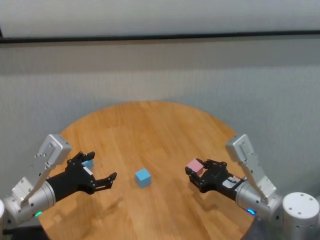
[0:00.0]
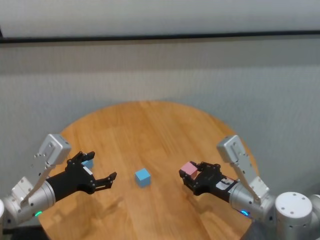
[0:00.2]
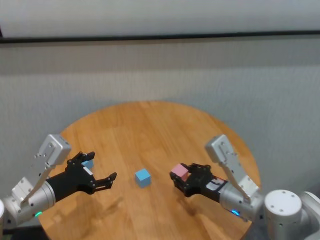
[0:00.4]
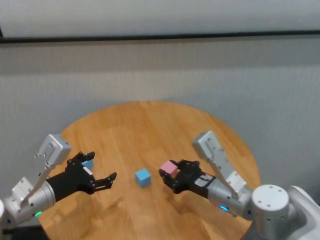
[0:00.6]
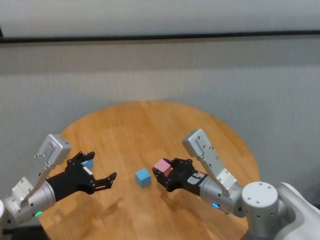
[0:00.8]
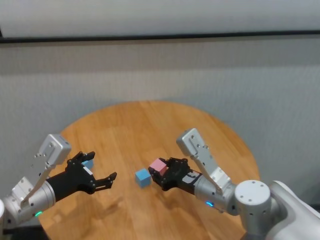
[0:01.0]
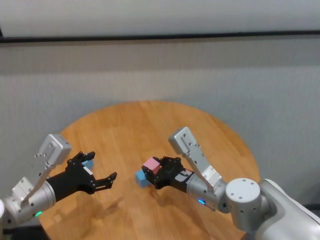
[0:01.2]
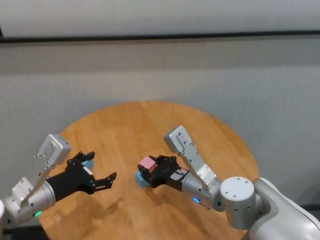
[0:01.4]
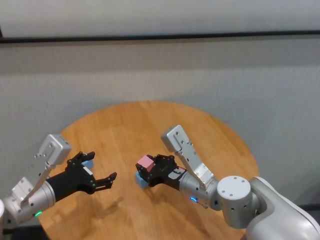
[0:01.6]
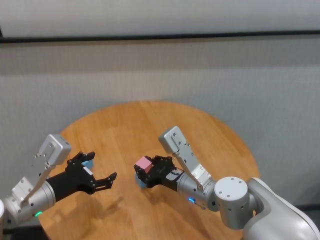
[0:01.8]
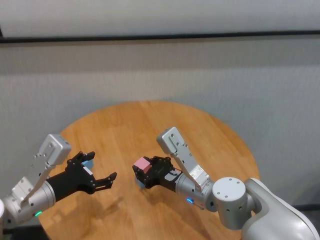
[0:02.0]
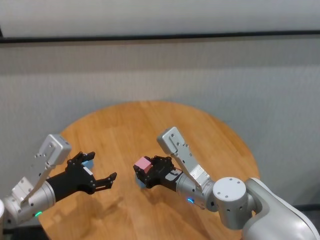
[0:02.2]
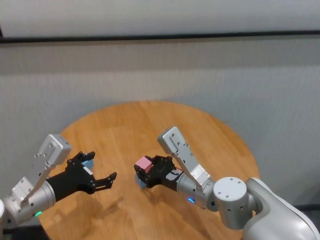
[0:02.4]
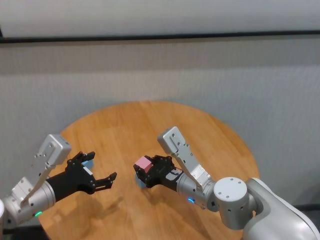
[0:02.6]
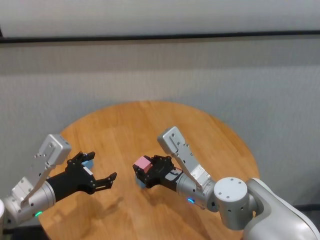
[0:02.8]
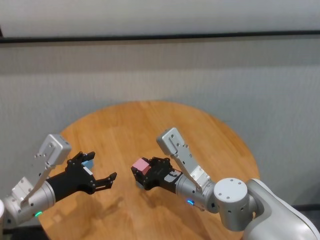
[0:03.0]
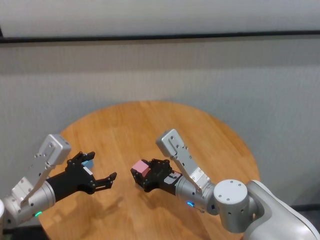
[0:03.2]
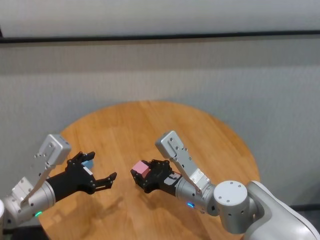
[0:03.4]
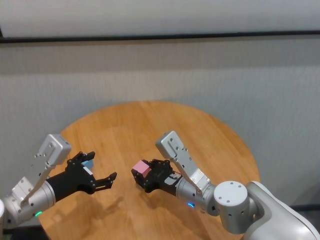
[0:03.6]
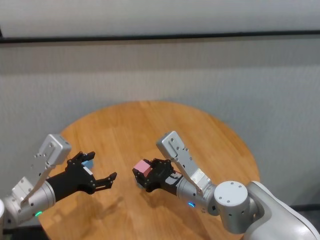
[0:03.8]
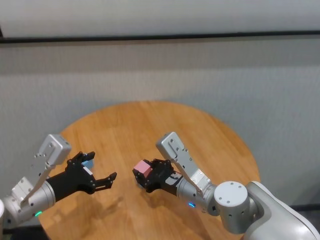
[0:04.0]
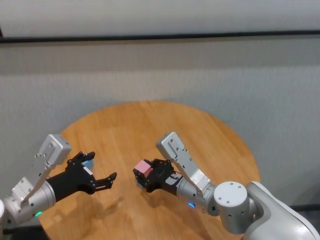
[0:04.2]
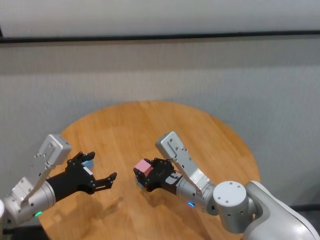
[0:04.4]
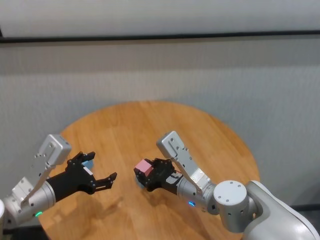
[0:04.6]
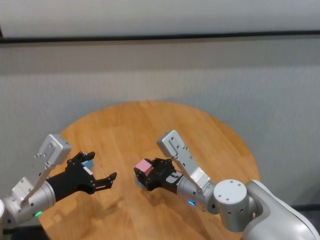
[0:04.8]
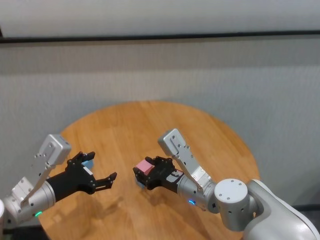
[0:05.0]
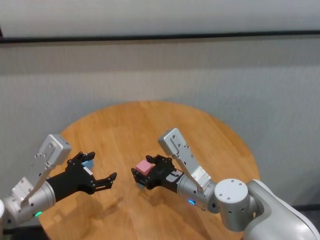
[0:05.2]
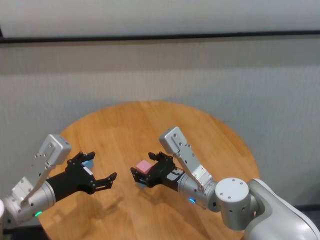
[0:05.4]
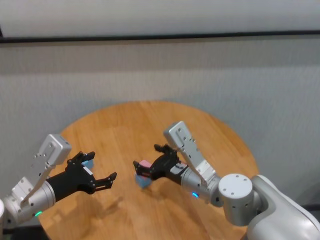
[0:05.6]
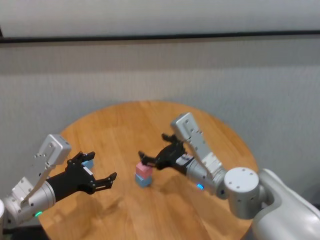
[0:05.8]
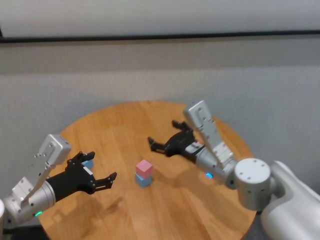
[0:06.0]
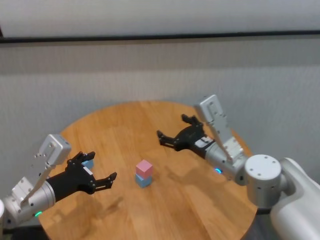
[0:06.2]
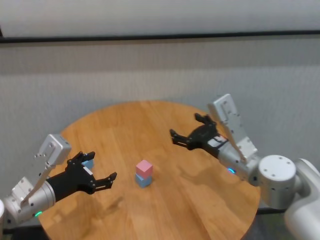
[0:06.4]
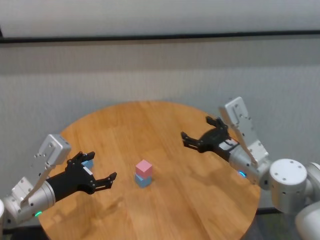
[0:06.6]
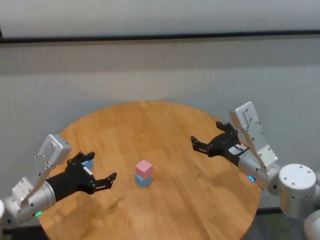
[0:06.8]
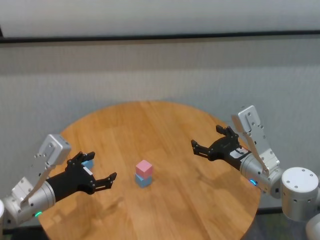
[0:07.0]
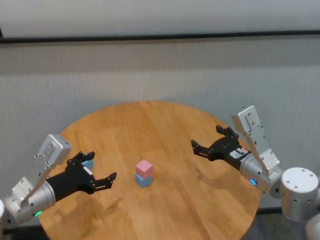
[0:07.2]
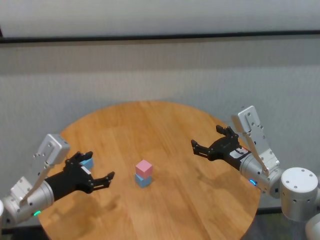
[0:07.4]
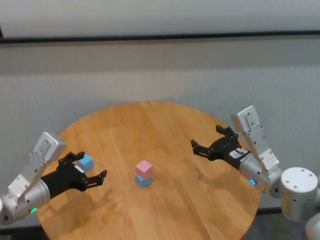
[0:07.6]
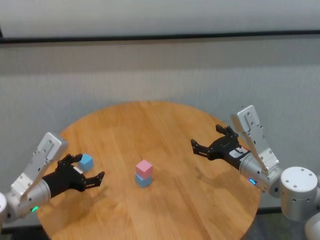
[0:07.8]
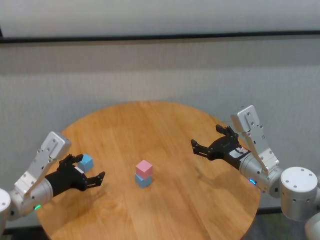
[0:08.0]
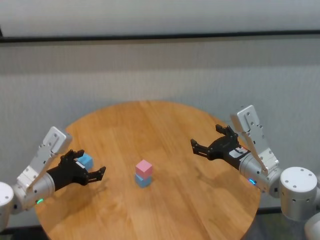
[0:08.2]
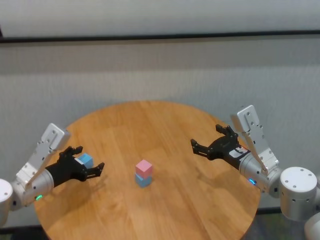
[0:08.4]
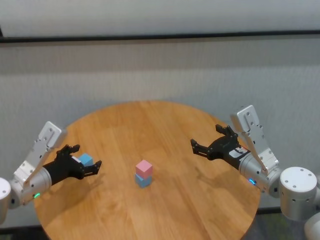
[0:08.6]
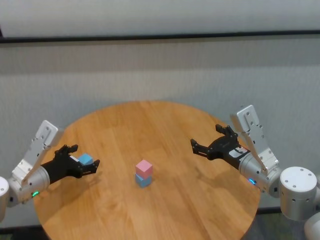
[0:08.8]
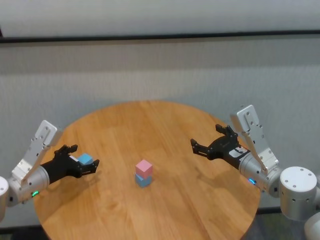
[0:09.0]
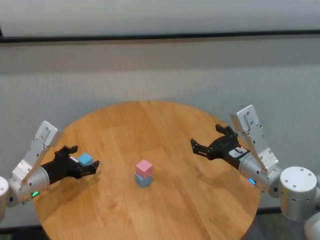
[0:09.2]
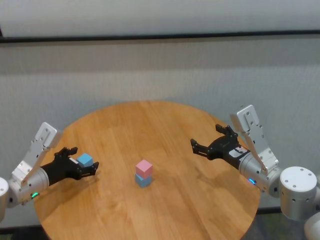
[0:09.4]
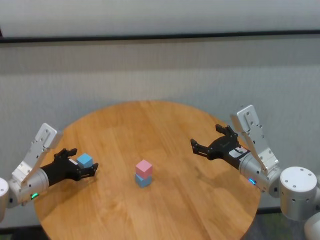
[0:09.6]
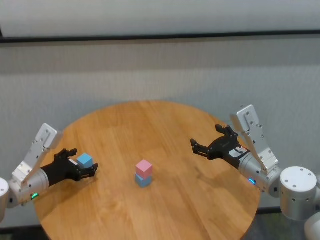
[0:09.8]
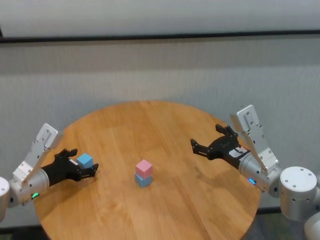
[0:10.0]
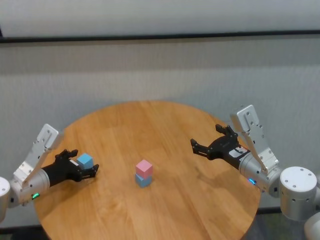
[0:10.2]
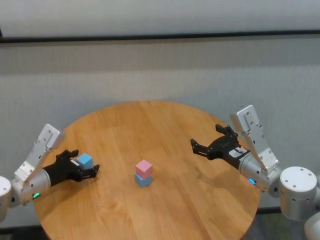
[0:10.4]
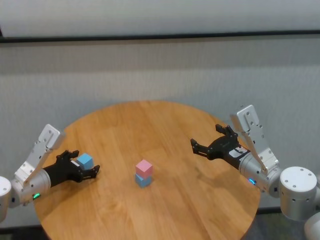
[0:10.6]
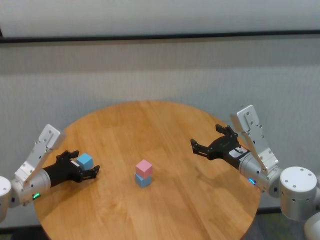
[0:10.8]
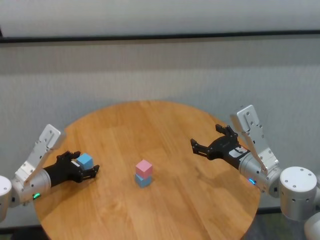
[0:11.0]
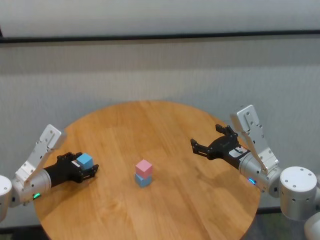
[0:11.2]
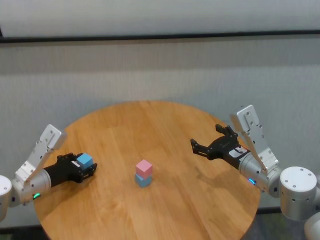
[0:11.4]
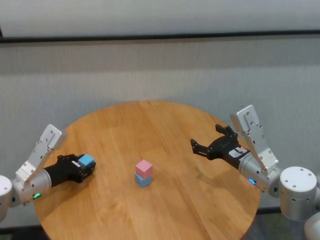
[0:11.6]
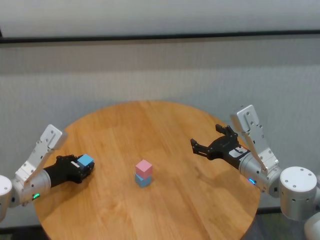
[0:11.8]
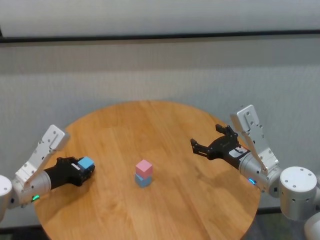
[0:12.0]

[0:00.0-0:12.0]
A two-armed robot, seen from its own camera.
Task of the whole recording: stack building blocks on the table.
Step, 0:00.0 to 0:05.4: Place the pink building block on the blue building blocks with right gripper.

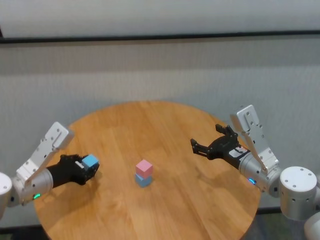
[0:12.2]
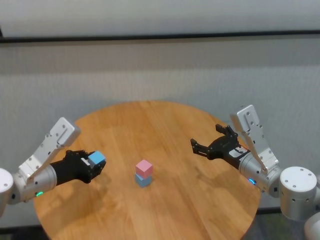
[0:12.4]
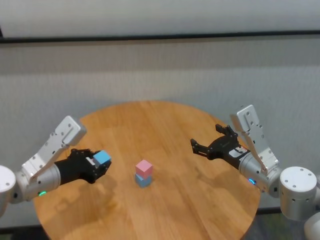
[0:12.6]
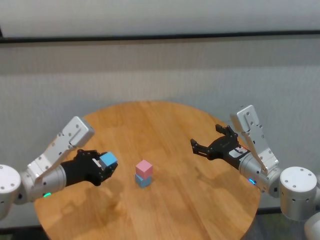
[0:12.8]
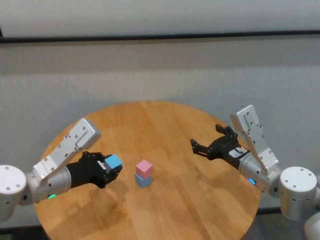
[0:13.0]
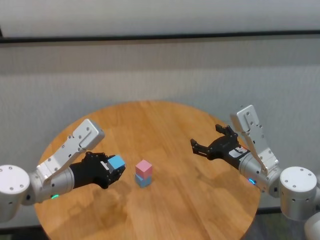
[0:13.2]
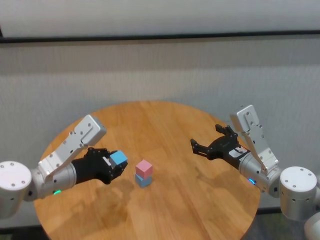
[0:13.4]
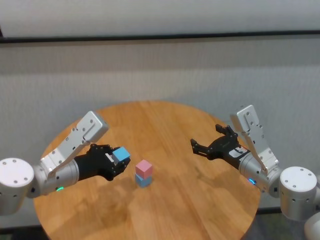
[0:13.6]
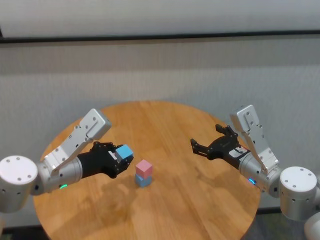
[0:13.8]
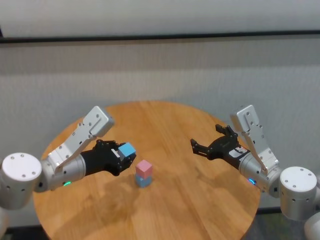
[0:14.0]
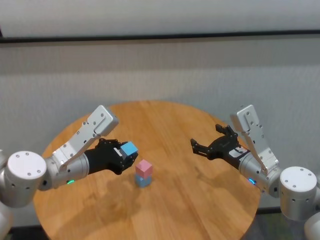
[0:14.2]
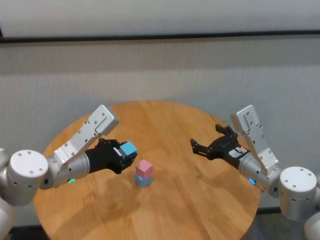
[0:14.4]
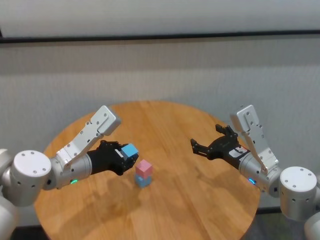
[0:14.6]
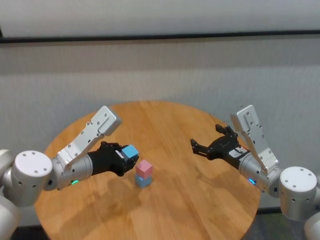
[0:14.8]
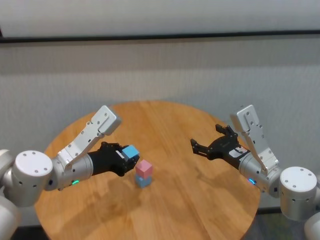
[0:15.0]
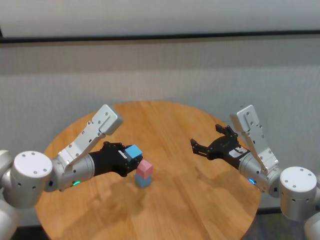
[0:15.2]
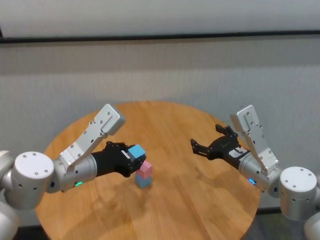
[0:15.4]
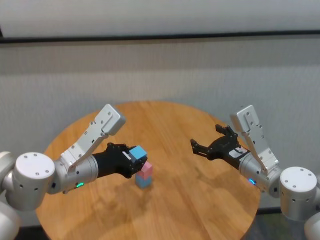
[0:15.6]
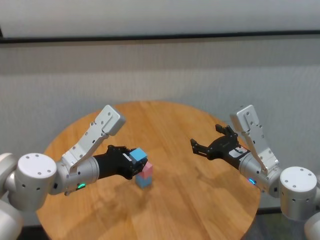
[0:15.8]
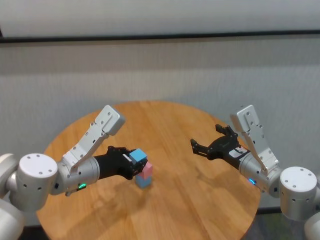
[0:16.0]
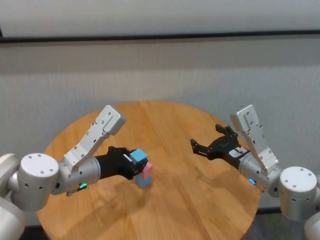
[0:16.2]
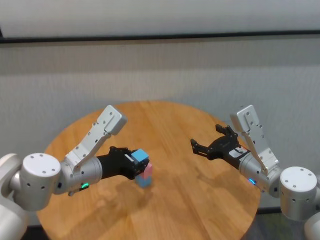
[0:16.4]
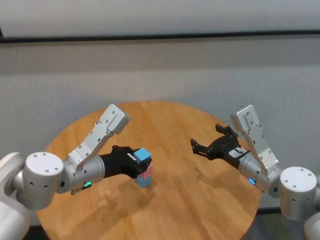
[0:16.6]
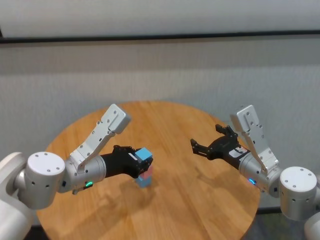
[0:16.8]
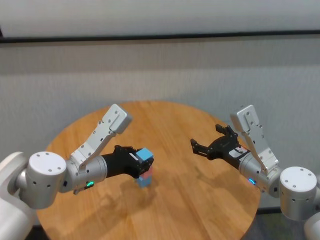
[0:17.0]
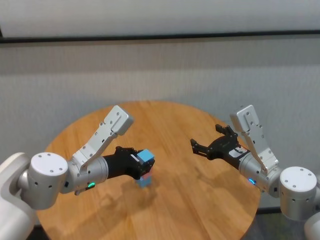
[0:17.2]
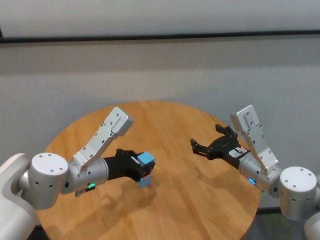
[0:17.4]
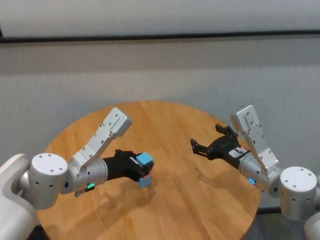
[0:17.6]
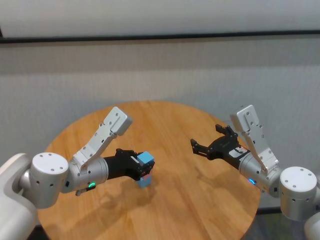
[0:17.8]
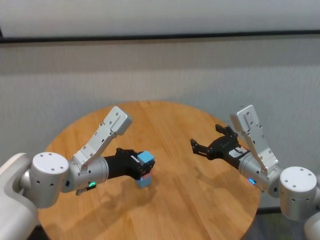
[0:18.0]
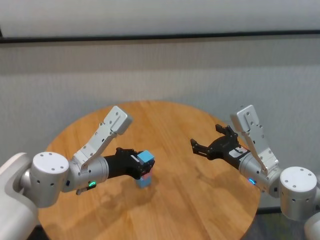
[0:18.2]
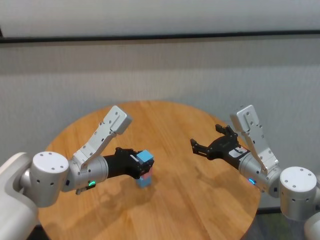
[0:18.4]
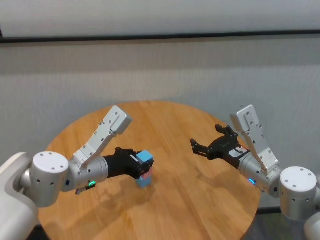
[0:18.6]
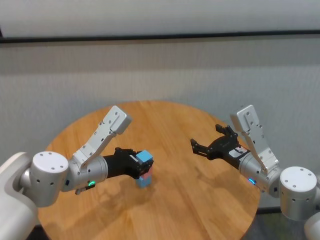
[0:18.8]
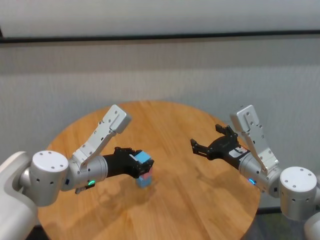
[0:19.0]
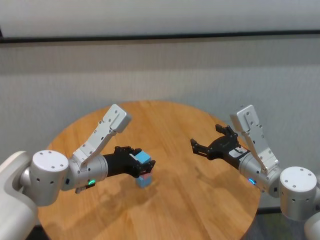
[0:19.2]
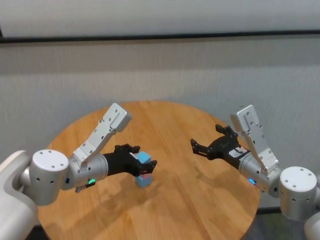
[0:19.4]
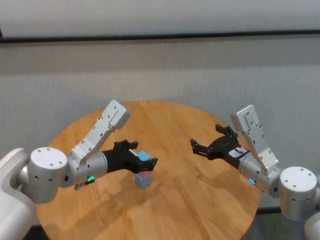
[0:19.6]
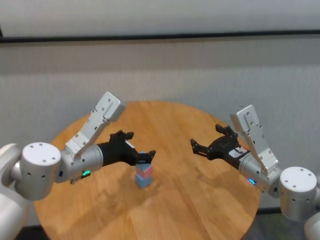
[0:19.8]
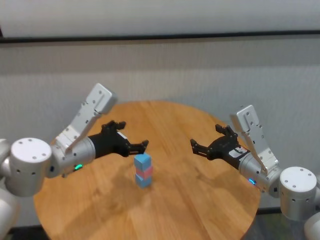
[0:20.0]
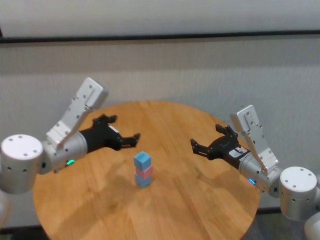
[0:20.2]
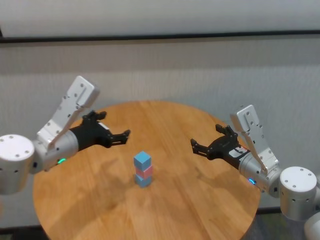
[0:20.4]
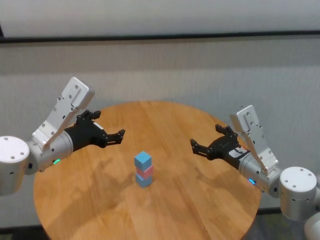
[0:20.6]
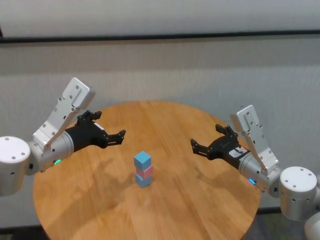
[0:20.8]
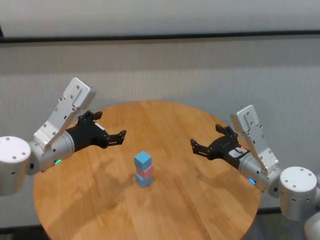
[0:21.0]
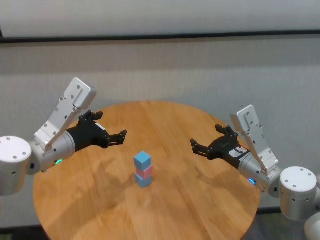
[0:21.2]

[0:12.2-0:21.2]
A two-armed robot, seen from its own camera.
Task of the whole recording: stack building blocks on the table.
Step, 0:12.2 to 0:19.6: Place the blue building block on the pink building blocks with left gripper.
